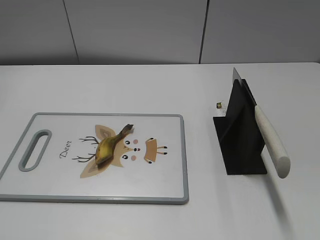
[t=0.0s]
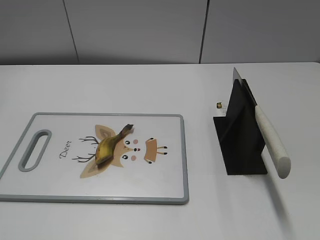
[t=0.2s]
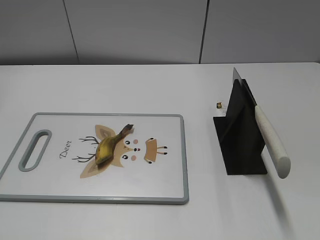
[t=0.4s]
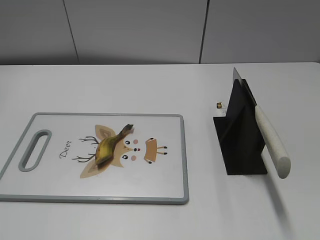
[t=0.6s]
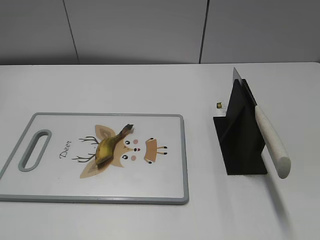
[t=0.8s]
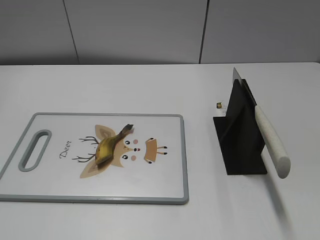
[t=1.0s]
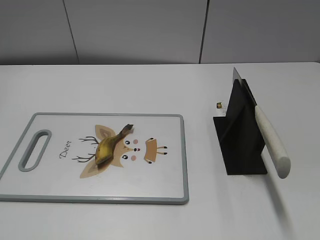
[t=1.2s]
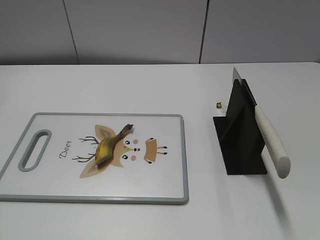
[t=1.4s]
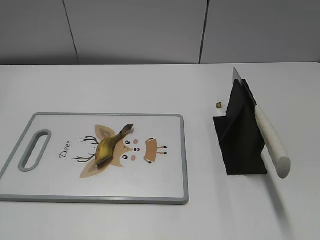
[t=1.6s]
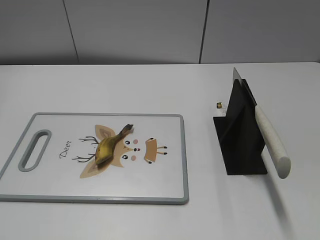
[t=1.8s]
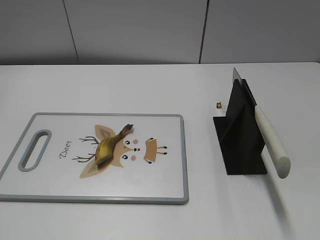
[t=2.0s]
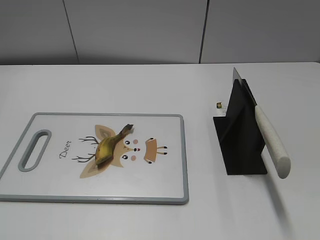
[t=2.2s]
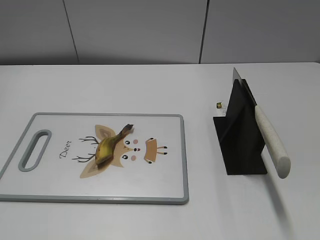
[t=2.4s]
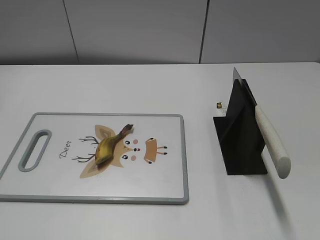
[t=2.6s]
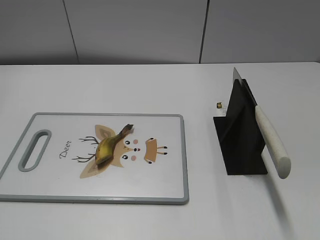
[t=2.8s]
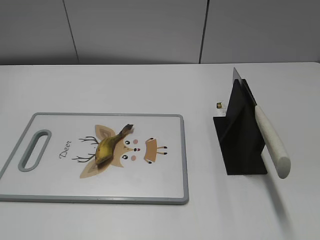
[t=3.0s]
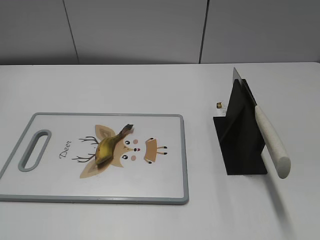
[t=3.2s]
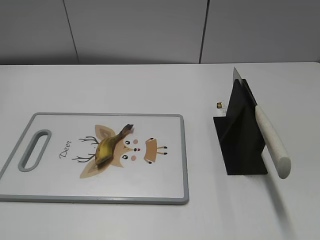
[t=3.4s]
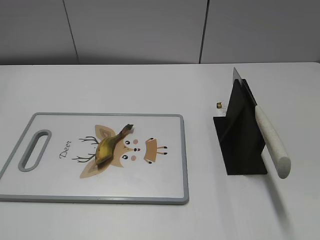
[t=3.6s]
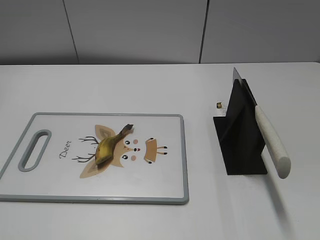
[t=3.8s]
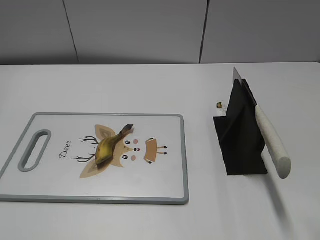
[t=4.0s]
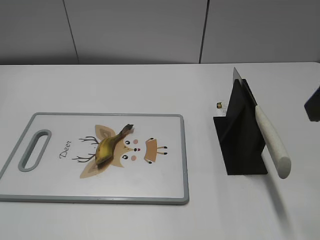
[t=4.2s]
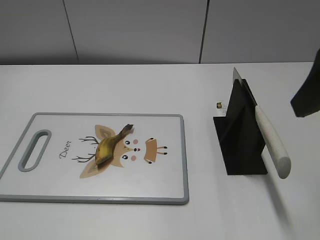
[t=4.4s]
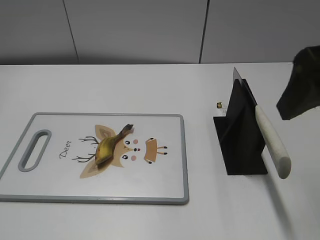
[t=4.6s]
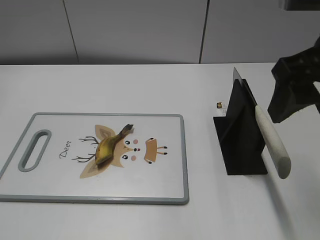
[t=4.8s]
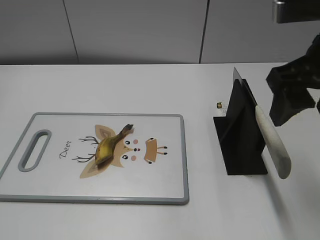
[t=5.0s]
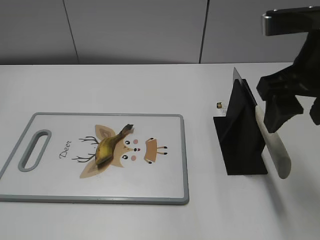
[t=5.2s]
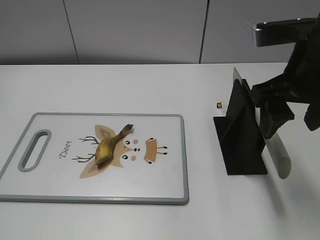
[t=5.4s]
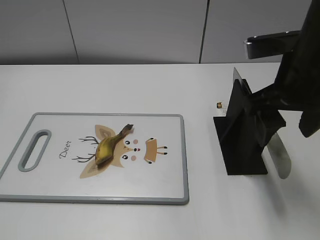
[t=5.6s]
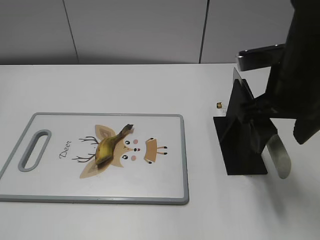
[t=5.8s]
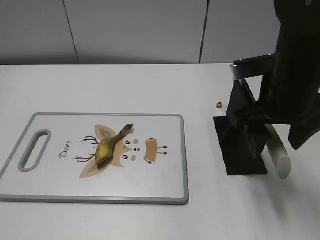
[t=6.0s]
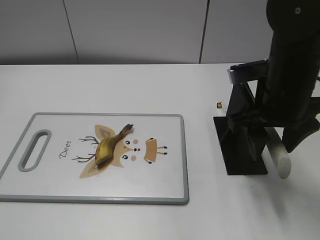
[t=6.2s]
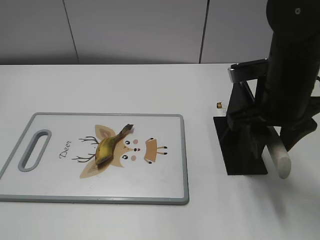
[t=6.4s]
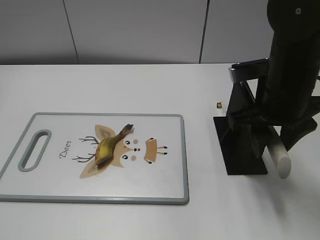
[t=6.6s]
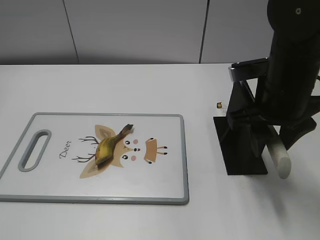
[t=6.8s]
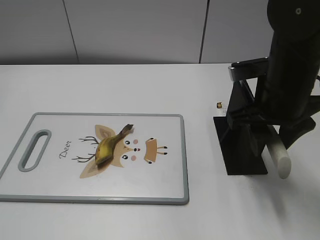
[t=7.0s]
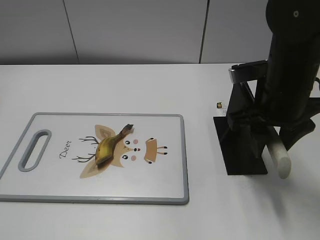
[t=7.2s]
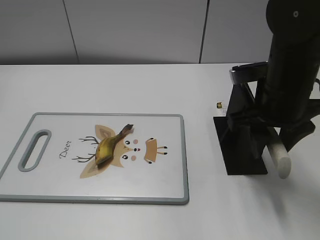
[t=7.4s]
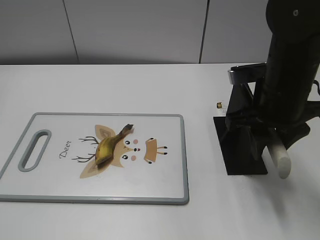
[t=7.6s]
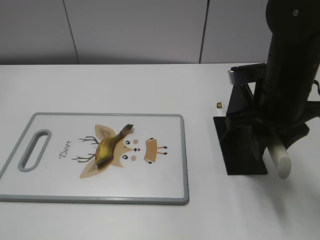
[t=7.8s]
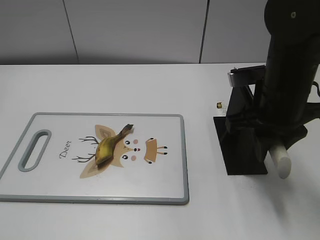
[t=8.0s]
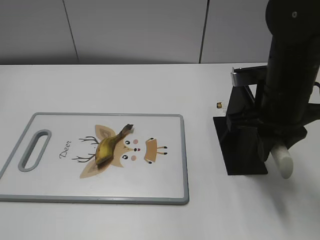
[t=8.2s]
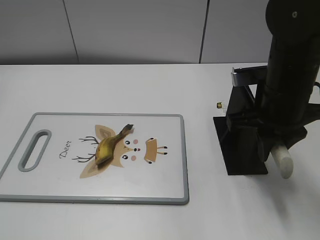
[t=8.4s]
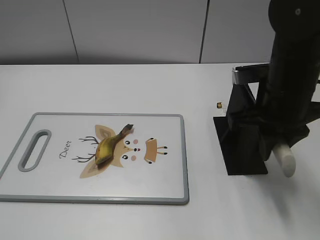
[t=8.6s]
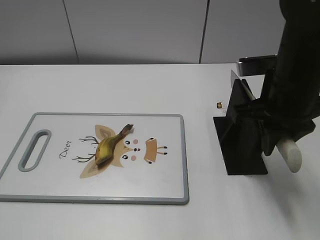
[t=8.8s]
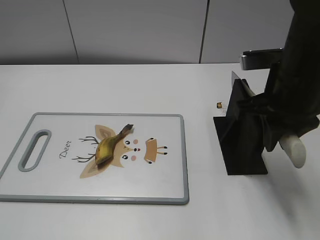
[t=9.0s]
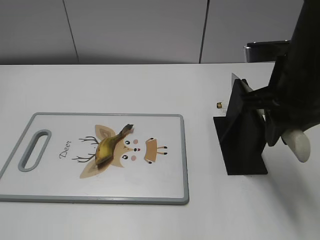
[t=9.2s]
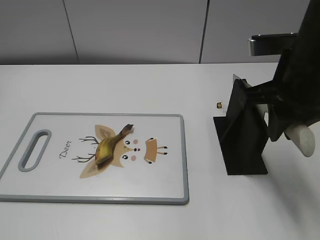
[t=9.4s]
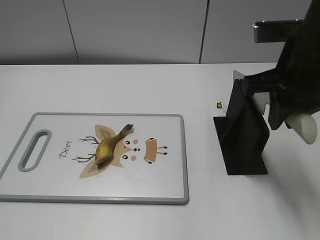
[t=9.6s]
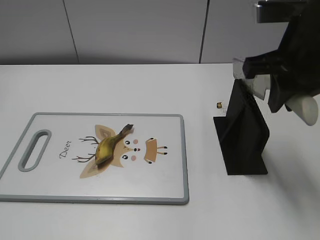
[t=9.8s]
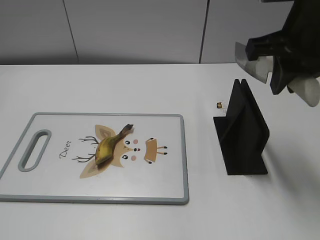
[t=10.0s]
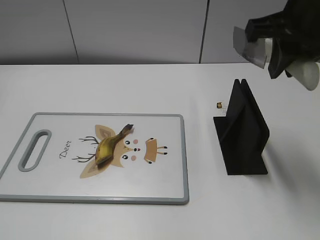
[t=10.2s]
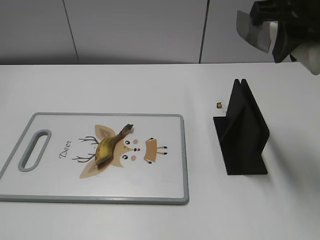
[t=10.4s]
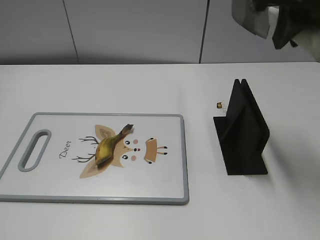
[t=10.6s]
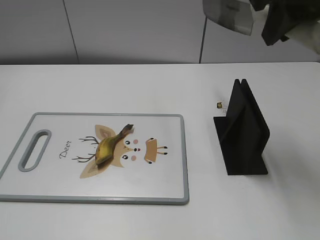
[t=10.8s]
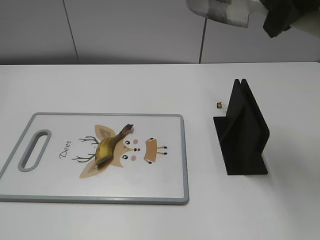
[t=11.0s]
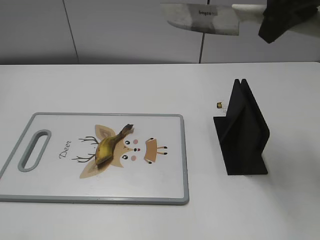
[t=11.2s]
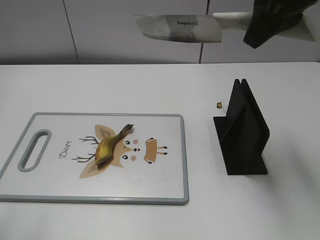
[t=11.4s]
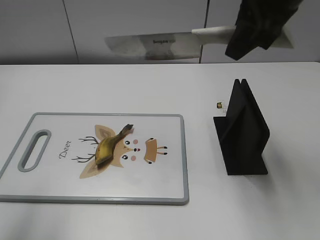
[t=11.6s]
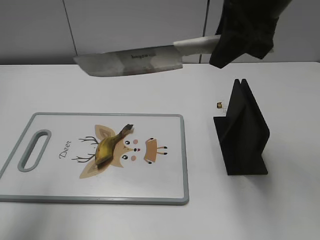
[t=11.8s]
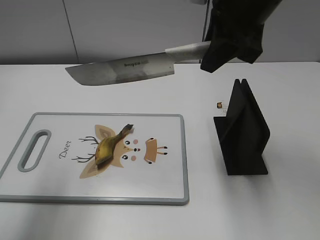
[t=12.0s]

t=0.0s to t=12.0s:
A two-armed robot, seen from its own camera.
Task of the whole recording: cut banana.
Step, t=0.0s to t=10.0s: Grab the knife handle with your right hand.
t=3.0s to t=4.4s: The right gripper goes some 15 cm forward and to the left.
t=4.4s to t=6.0s: The right gripper shifts approximately 15 cm downward, forward and to the left.
t=6.0s to t=7.6s: The right gripper closes.
t=7.6s to t=9.0s: The right gripper closes up.
t=9.0s to t=10.4s: The right gripper shifts roughly 10 cm upward.
t=10.4s to t=12.0s: The left gripper goes about 25 cm forward and upward. The right gripper travels to the left by roughly 5 cm.

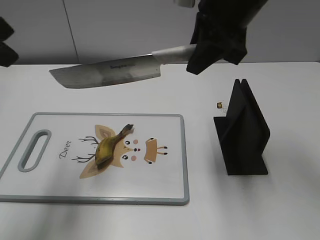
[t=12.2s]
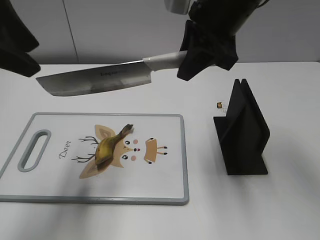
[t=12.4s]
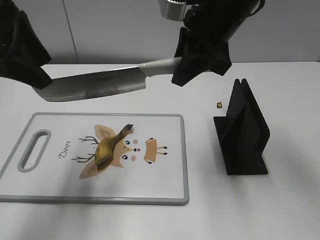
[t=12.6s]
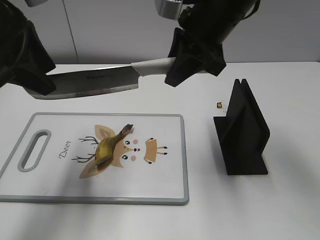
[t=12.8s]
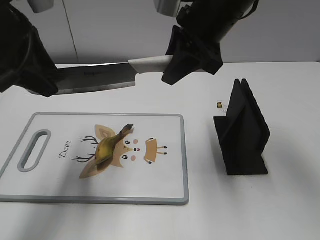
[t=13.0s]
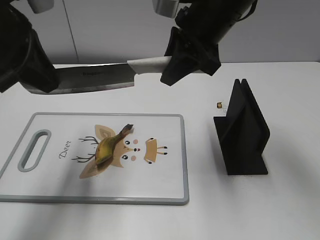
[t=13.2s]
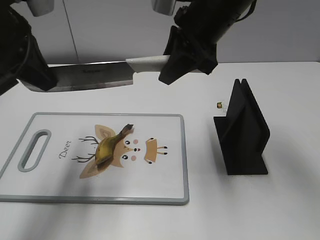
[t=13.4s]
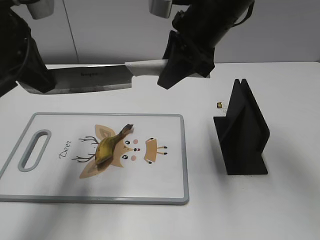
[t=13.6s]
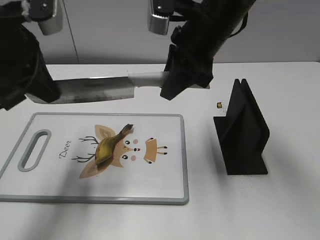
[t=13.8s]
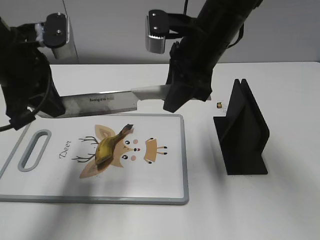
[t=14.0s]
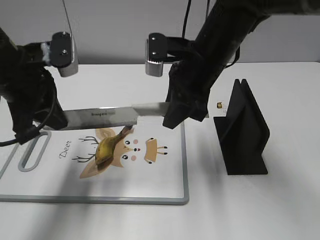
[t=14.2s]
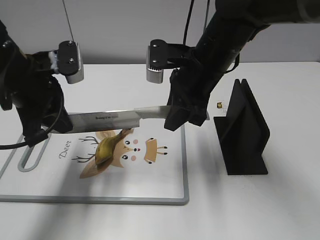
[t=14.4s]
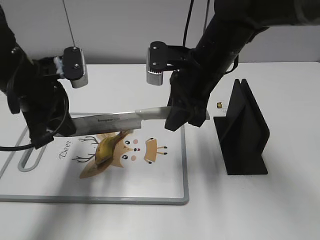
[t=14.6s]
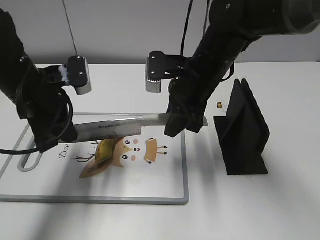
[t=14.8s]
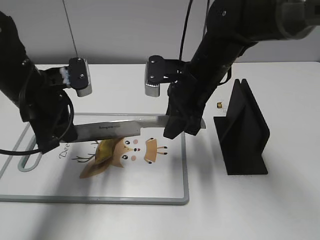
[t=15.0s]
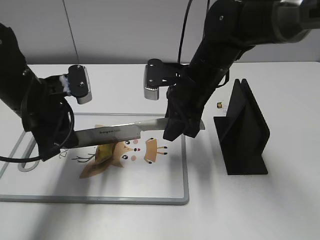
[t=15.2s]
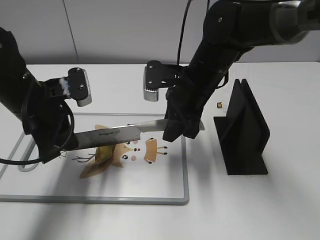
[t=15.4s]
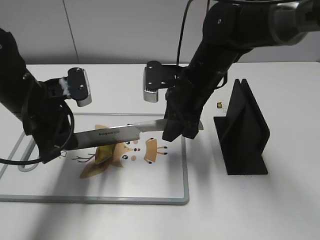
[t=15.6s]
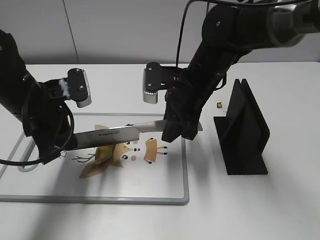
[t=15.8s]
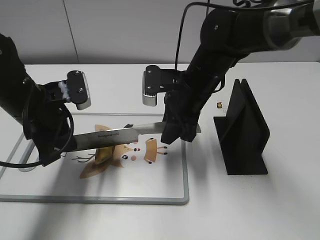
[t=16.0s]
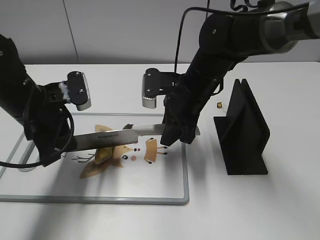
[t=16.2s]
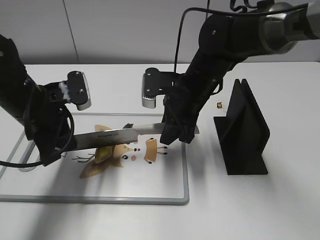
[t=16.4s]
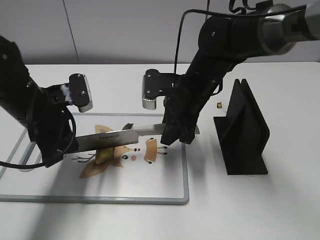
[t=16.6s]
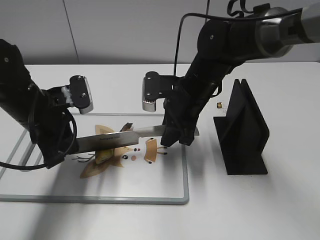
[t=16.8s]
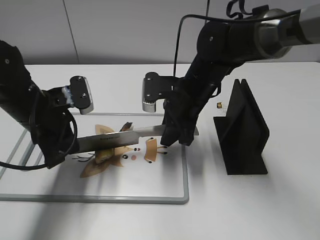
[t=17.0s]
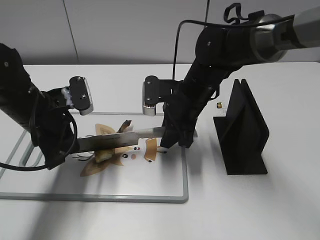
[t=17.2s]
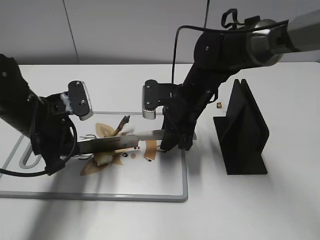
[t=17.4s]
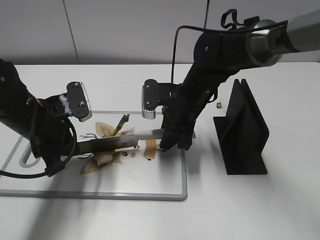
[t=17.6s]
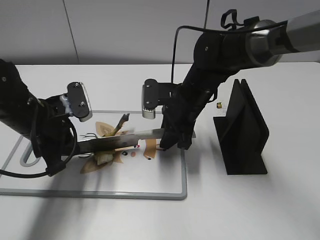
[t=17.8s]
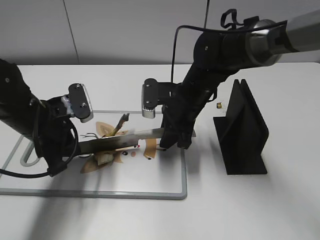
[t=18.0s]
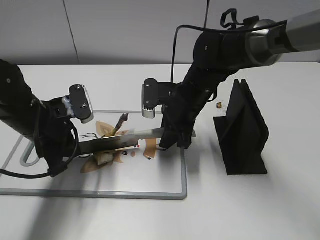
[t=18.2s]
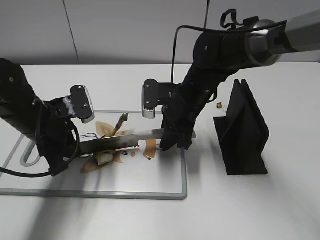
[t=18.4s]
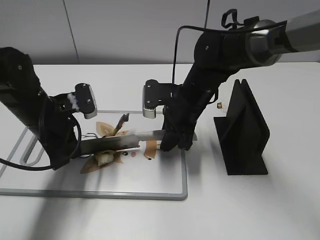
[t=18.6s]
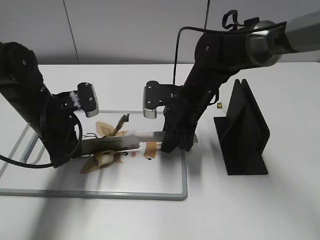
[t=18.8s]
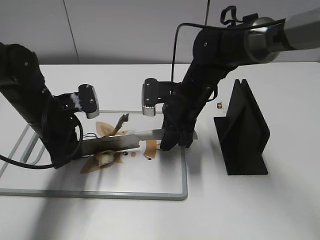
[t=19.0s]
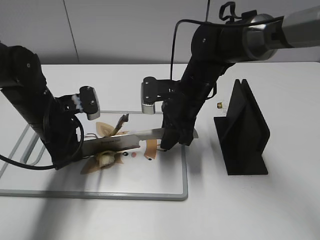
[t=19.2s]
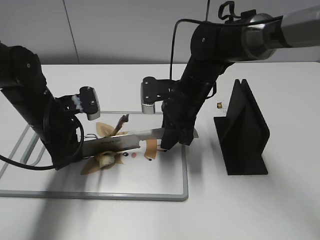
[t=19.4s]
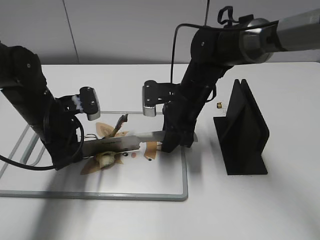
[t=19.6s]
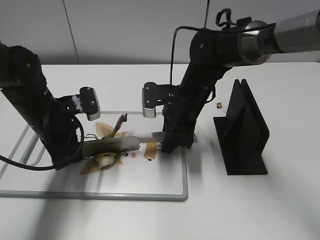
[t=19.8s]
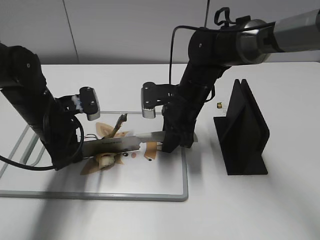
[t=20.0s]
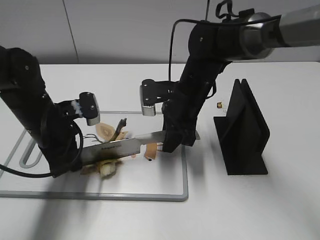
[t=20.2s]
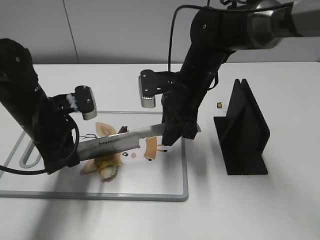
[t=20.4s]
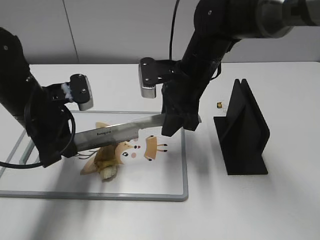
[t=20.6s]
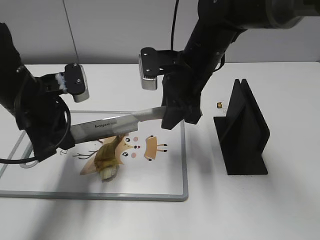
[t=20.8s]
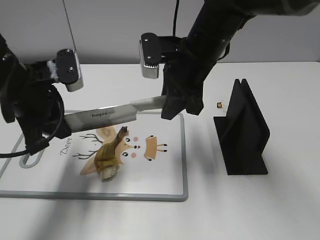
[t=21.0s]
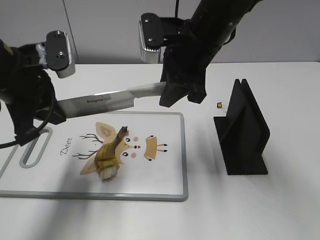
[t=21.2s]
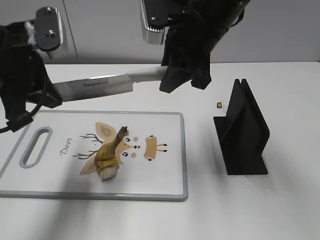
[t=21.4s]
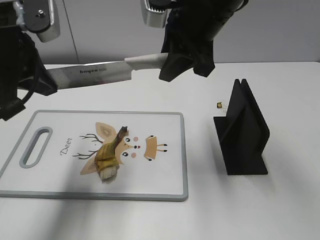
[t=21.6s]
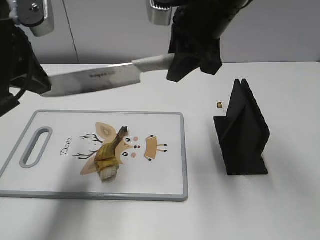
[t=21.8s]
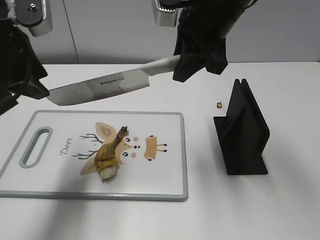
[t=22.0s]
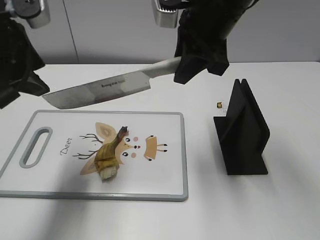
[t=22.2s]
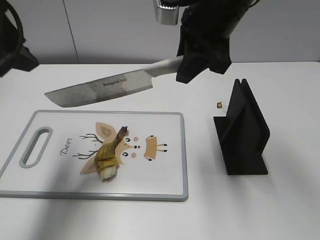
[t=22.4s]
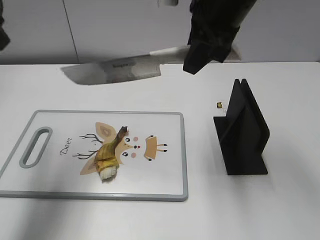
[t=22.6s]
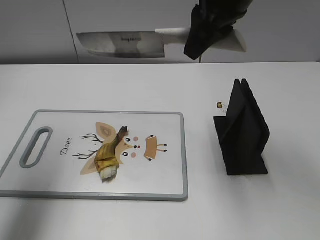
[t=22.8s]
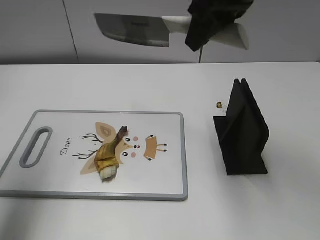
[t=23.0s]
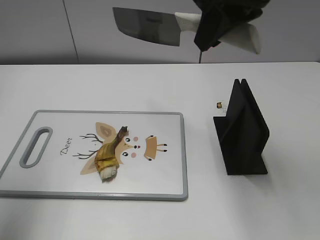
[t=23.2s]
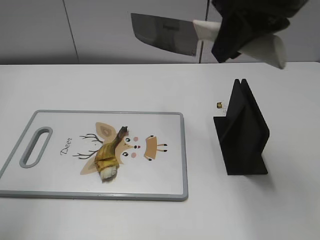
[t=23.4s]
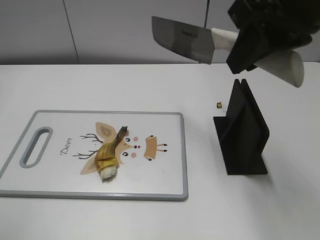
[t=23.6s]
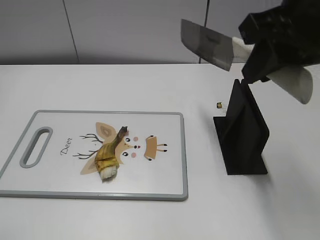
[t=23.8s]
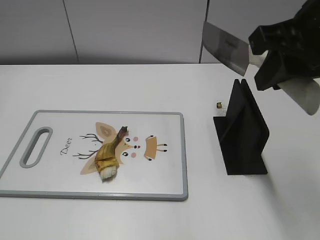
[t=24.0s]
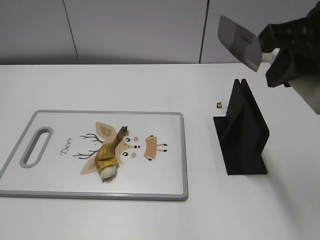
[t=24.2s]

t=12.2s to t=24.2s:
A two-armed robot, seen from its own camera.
Task of the whole recording: cut banana.
Step, t=12.2s to t=16.8s: Lift the knife with your right hand.
Step, t=17.2s to t=22.8s: Cut the banana with your right hand.
t=12.2s to t=13.8s: The right gripper is displaced downward by about 5 cm. The left gripper goes about 10 cm downward and forward, and closes.
t=13.8s to t=15.2s: Both grippers move downward, approximately 10 cm.
t=15.2s to t=16.6s: The grippers stay close to where they were, moving slightly.
t=18.2s to t=19.8s: There are only small adjustments of the grippers.
t=19.8s to t=21.2s: Both grippers travel together upward, some 15 cm.
t=21.2s to t=22.6s: The left gripper is displaced upward by some 10 cm, and opens up. The right gripper shifts some 10 cm upward.
t=22.6s to t=24.2s: The right gripper goes roughly 15 cm backward and to the right. The left gripper heads backward, covering approximately 25 cm.
